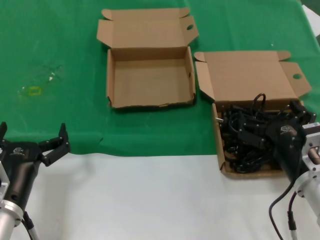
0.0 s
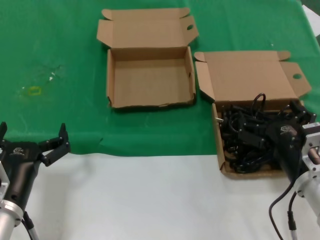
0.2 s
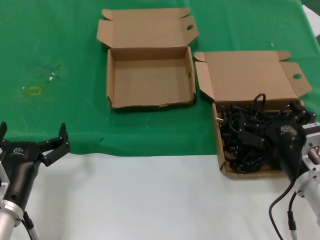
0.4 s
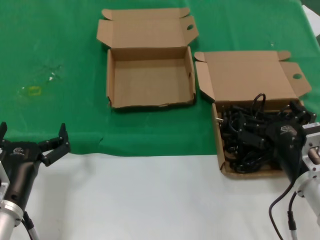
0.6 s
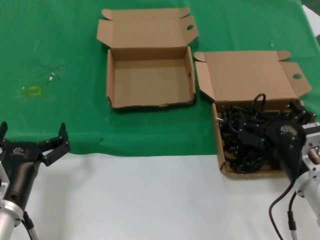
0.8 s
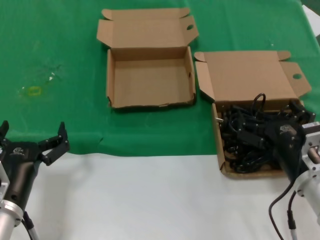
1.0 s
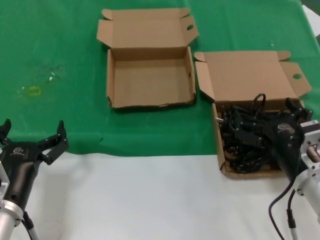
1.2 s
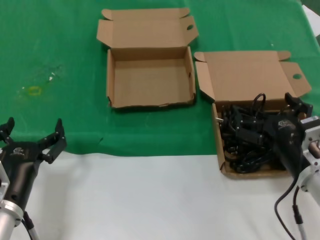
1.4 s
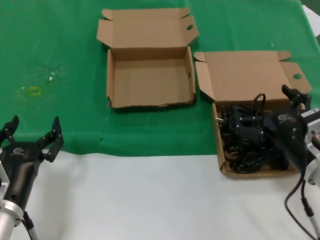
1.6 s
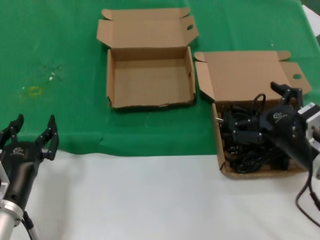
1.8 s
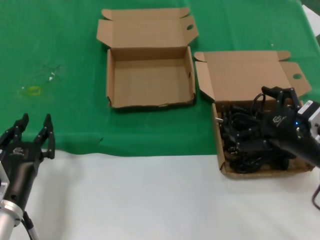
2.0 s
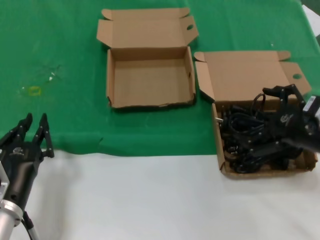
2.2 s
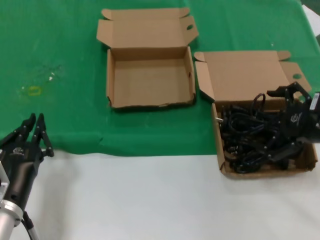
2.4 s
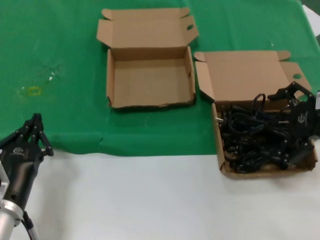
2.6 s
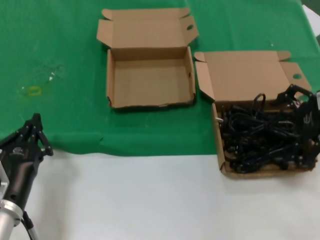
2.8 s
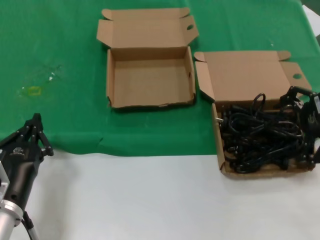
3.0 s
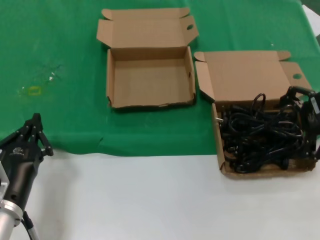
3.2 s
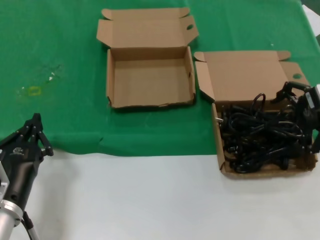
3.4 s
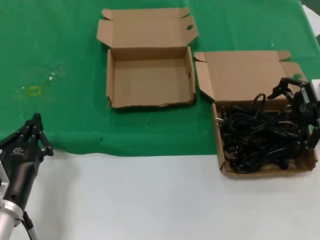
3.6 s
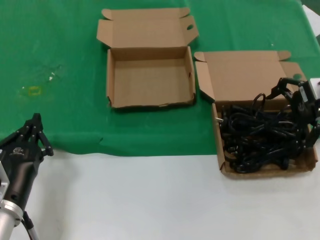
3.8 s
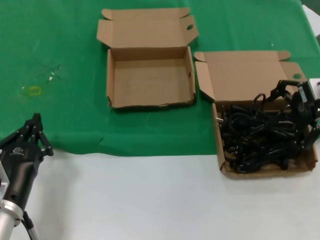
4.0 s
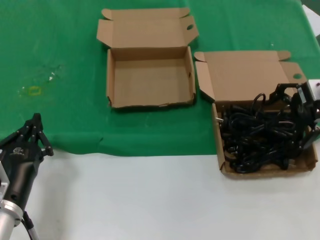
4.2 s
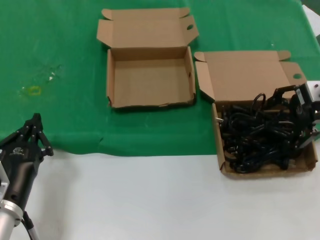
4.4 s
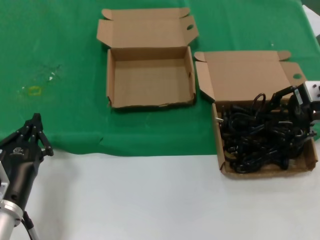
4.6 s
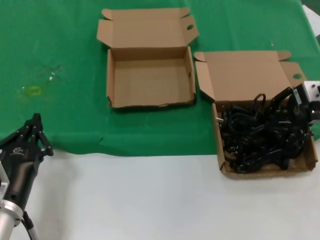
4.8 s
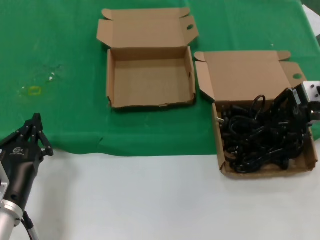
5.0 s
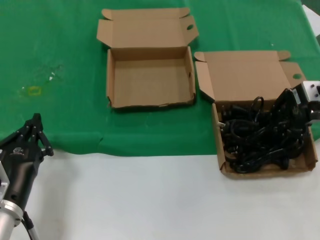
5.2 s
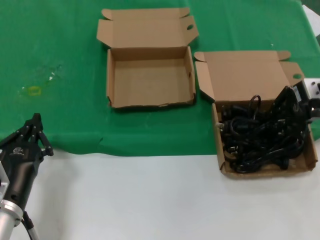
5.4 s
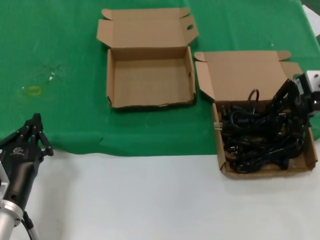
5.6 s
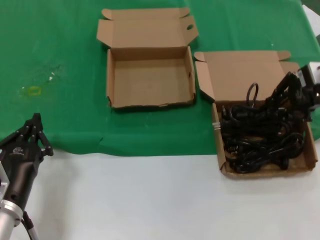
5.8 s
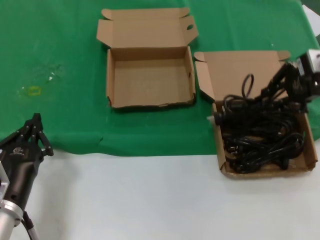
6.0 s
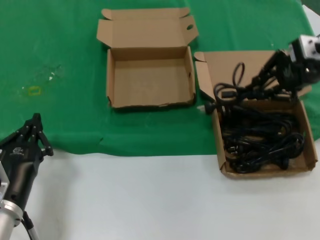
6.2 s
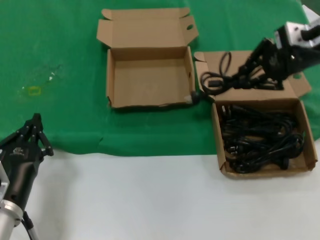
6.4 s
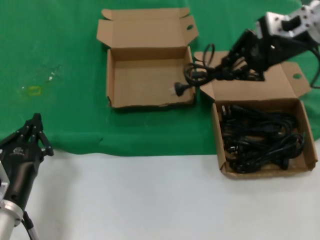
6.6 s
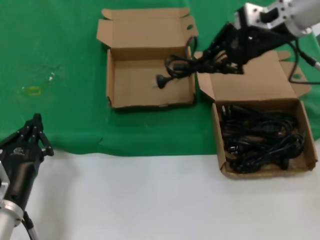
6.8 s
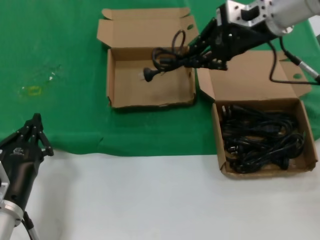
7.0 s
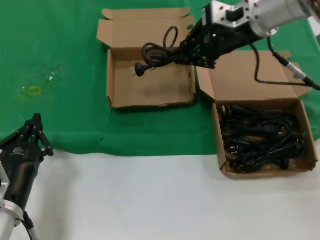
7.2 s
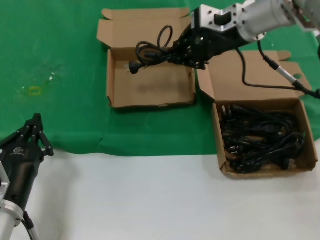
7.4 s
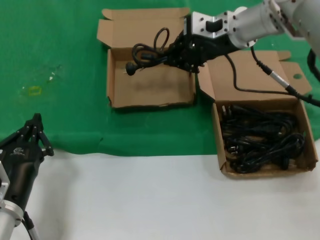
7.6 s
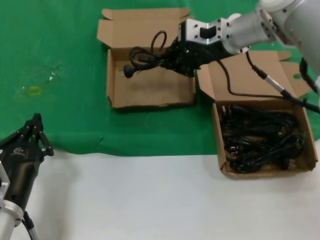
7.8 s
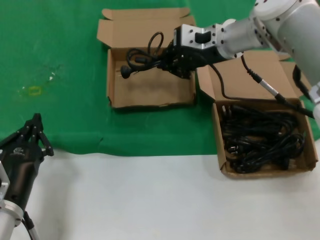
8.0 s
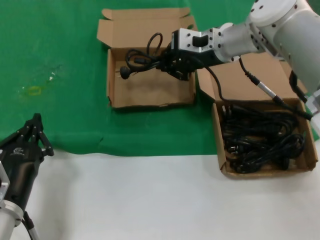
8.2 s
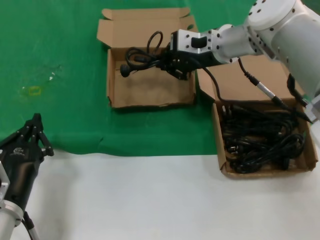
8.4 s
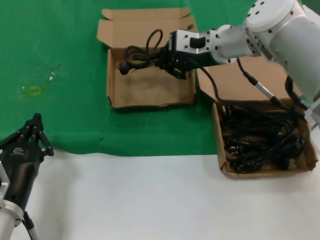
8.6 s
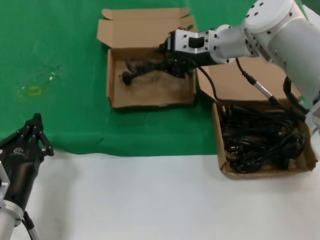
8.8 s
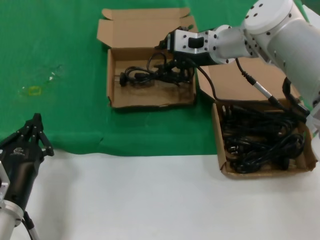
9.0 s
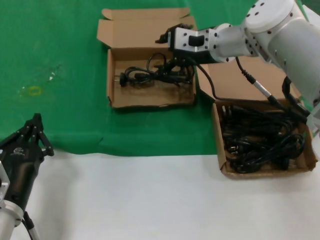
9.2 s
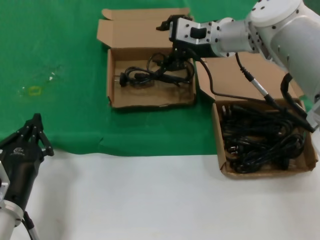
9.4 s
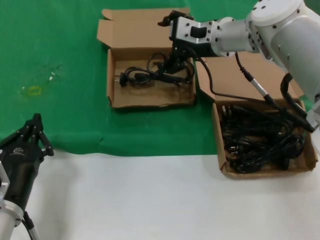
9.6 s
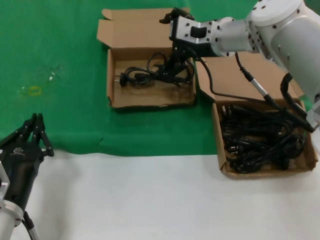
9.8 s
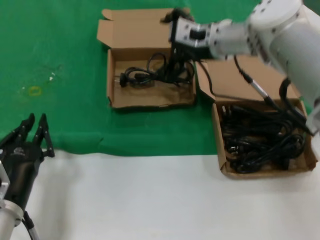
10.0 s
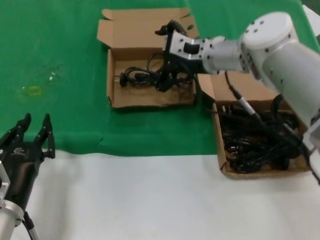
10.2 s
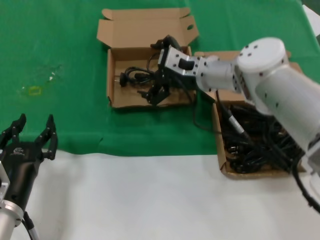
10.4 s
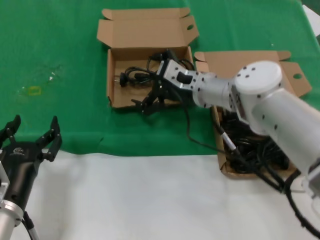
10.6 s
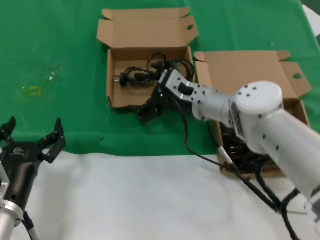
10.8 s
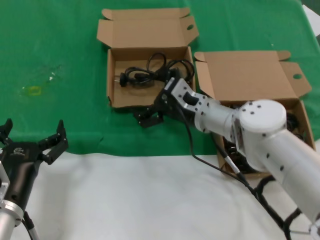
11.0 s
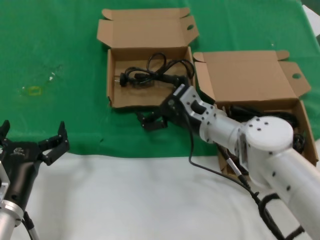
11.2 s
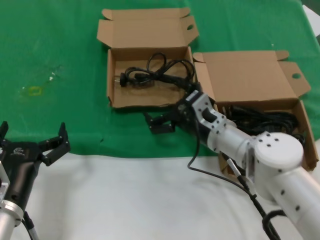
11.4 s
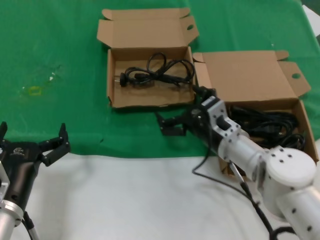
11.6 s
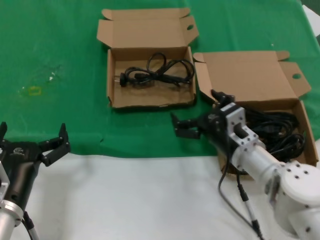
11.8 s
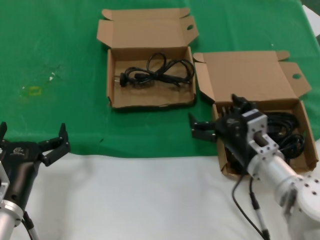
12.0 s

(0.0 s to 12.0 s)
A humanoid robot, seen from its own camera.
Task of the whole recording: take the parts from the box containing them and put them into an empty box.
Step, 0.0 s - 5.2 s: Grasp the data cable.
Step, 5.4 s - 9.2 s: Place the data cable in the another box.
0.0 s - 1.6 s: The hands make only small movements.
1.6 s - 3.0 s: The right hand moves upward, to the right and forward, about 25 cm.
3.0 s - 4.4 s: The right hand shifts some 5 cm forward.
4.4 s - 6.0 s: The right hand shifts some 5 cm upward.
6.0 s - 7.6 s: The right hand heads to the left and forward, covering approximately 20 cm.
7.6 s - 9.0 s: The right hand moves downward, about 5 cm.
9.0 s - 10.4 s: The right hand moves downward, roughly 5 cm.
10.4 s - 12.0 s: The right hand is displaced backward, downward and to the right by some 25 cm.

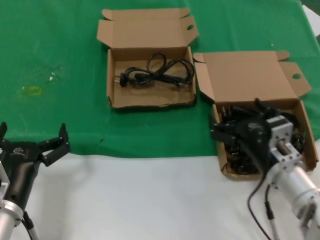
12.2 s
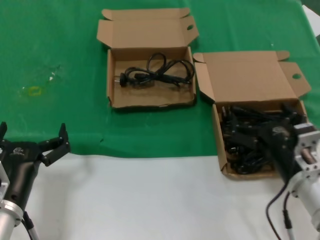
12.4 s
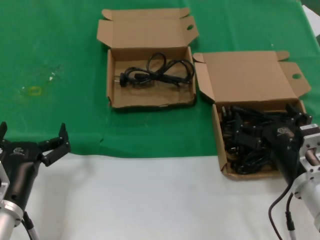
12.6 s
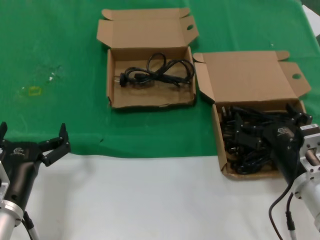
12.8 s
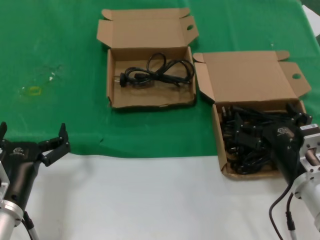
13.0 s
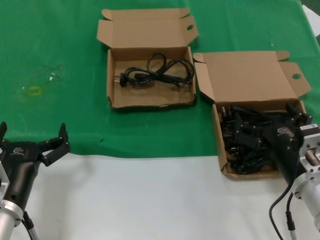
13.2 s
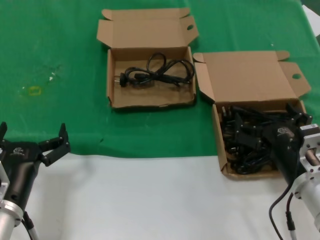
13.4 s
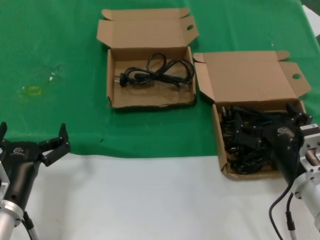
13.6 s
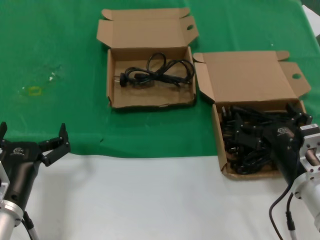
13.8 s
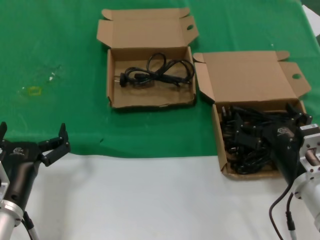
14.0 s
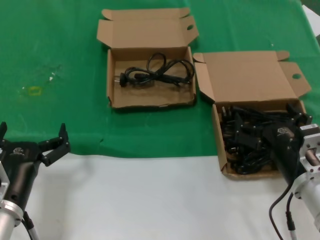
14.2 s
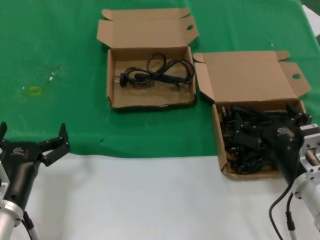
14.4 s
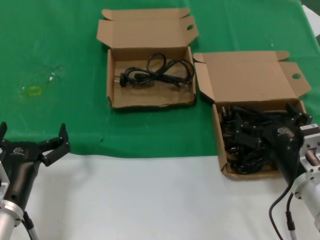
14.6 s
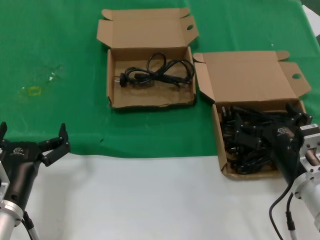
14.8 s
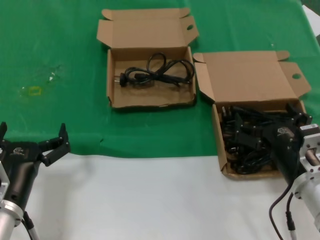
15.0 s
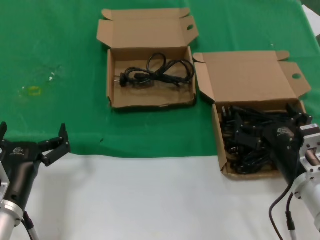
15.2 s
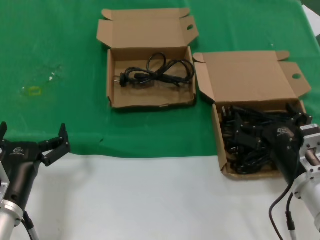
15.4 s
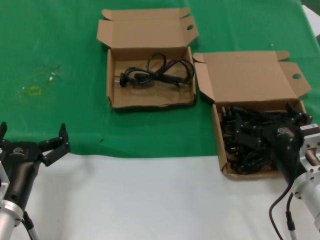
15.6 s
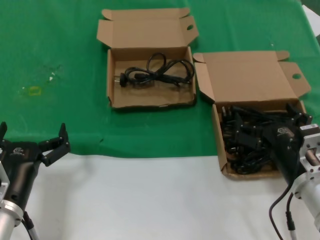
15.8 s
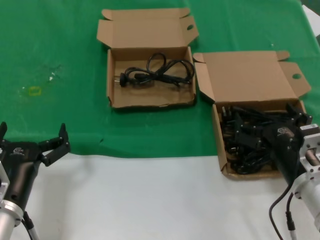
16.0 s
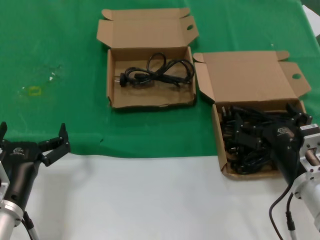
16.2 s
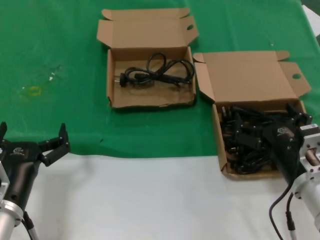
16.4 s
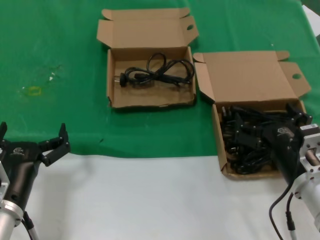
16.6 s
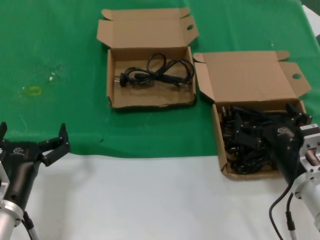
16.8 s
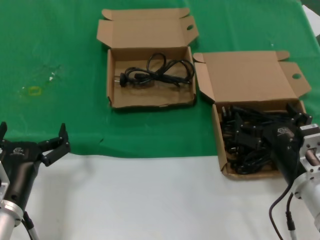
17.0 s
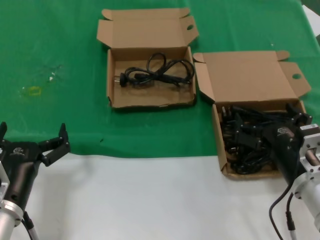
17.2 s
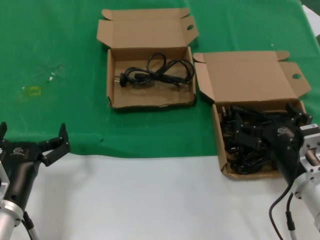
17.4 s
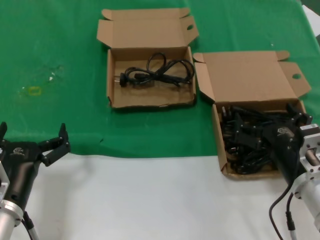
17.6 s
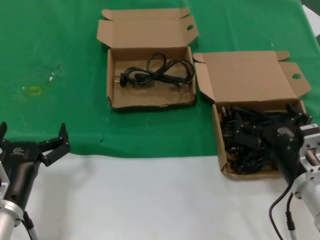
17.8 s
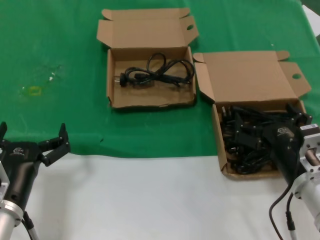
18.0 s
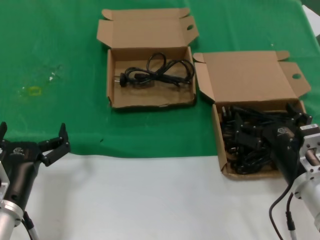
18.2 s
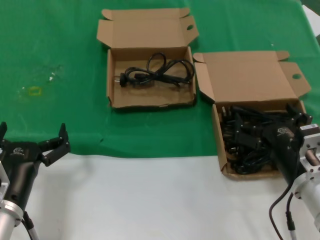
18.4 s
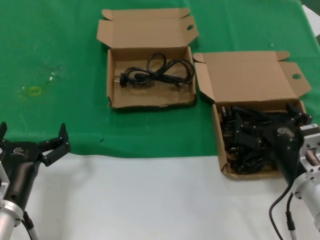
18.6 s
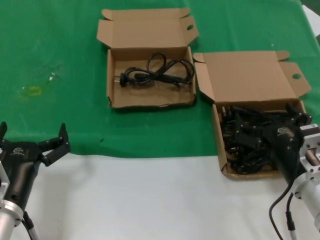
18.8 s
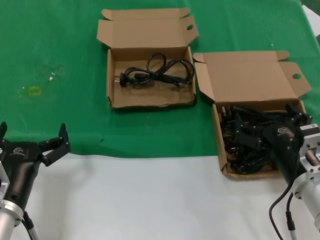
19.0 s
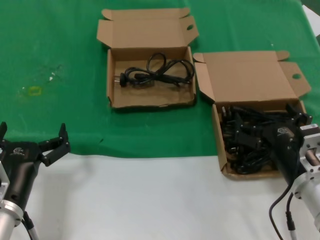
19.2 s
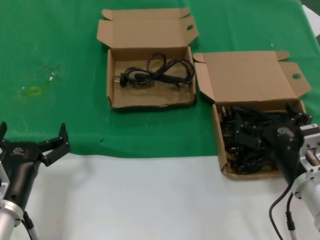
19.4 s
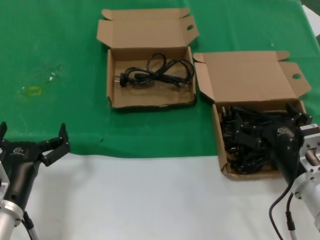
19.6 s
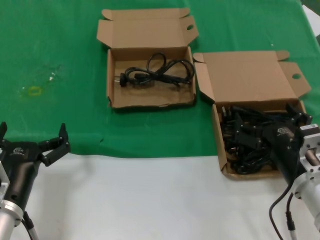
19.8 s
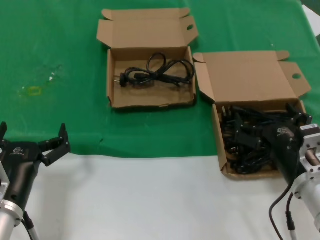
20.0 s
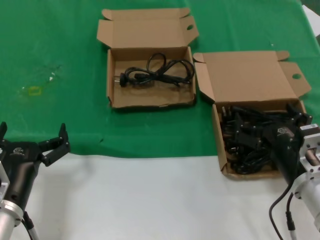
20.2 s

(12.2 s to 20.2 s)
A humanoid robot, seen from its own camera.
Task of the whole recording: take the parts from the box containing them and put them into an empty box.
12.2 s - 13.8 s: The right hand changes place by roughly 5 cm.
13.8 s - 20.2 s: The two hands keep their place.

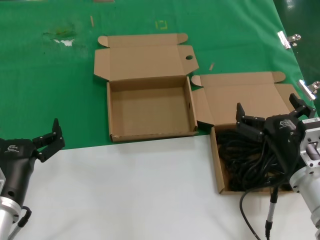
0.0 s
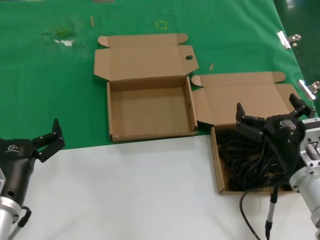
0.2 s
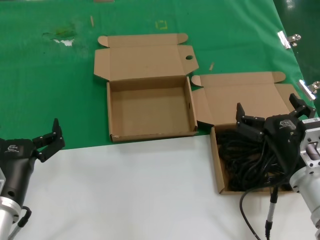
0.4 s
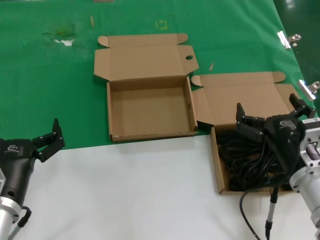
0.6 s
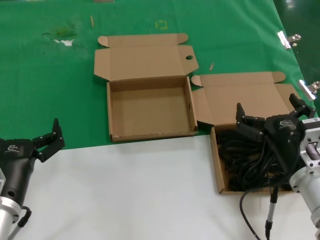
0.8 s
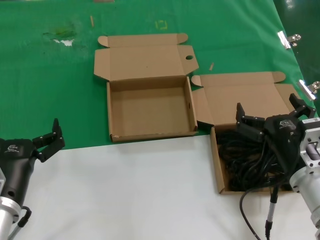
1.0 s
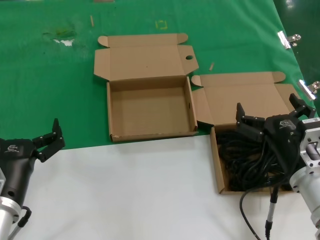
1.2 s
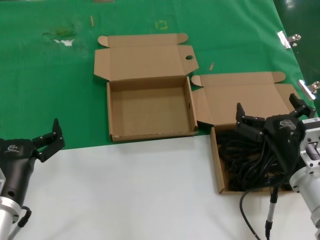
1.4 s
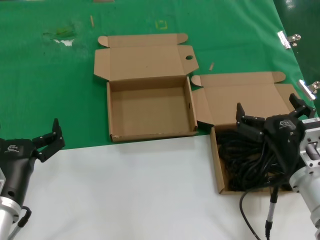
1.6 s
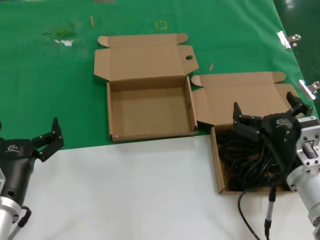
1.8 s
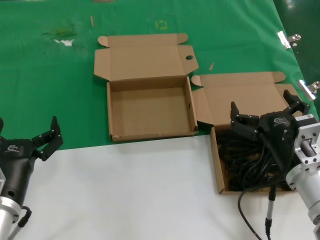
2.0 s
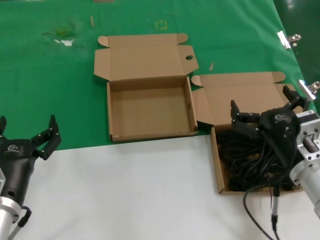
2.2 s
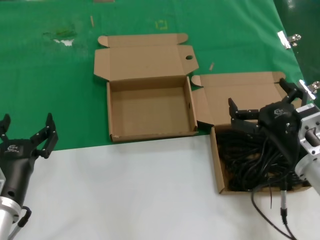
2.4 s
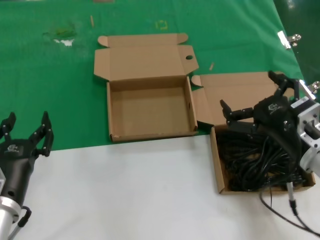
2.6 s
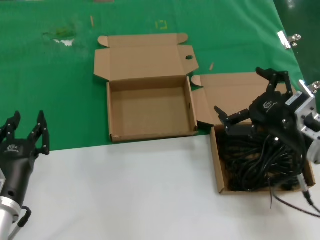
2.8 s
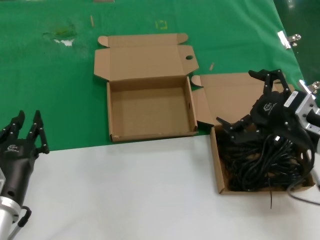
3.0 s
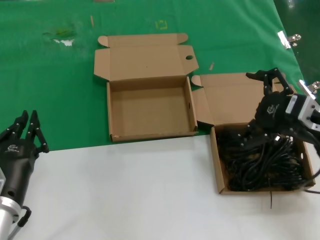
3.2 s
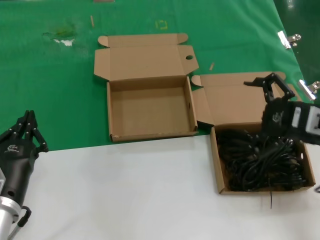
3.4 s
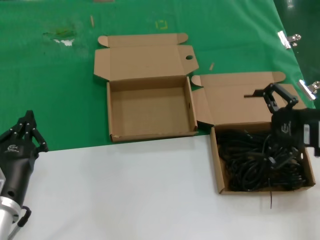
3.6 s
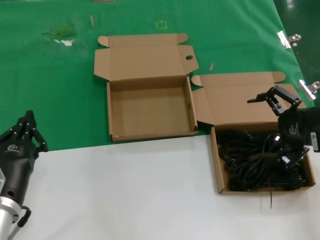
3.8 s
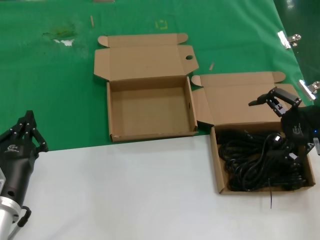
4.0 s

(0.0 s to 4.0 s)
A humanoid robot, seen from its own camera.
Task of the whole recording: take the parts from the box containing them and put them into an empty box.
0.0 s - 1.4 s: Neither hand changes place.
1.4 s - 2.6 s: The right hand ends up approximately 5 cm from where it was.
2.6 s - 4.0 s: The right hand shifts about 15 cm to the right, upward and forward.
